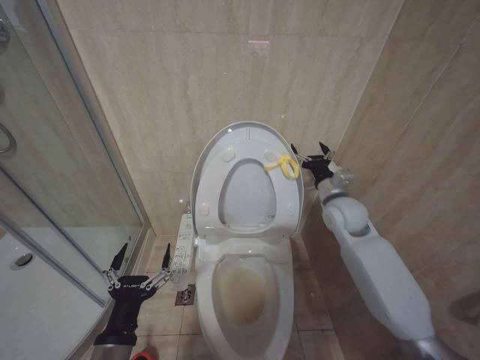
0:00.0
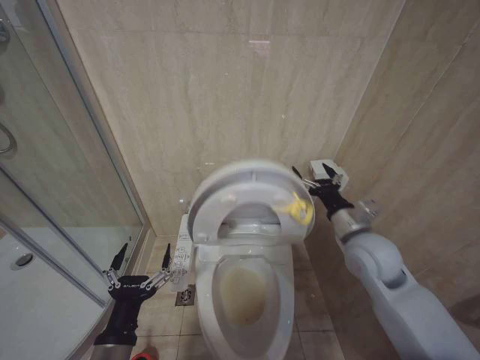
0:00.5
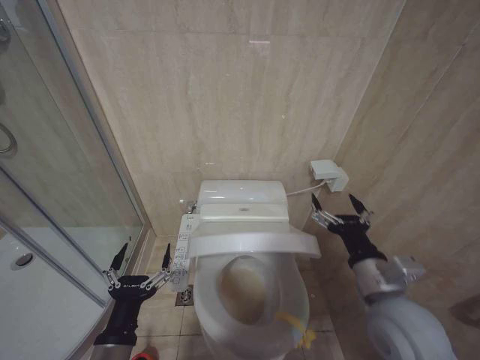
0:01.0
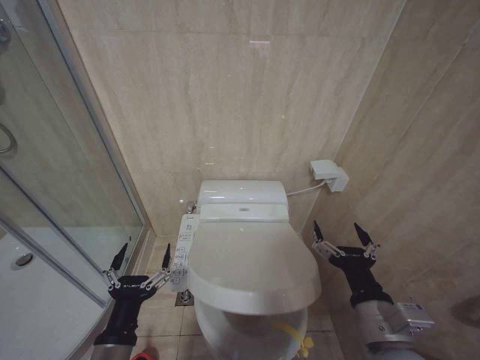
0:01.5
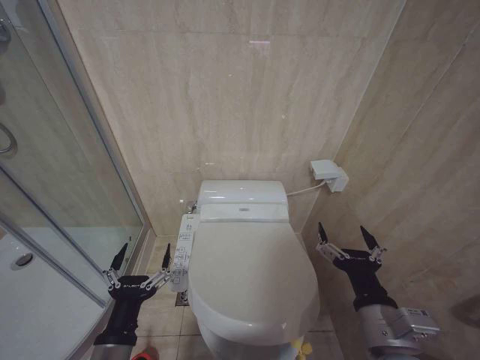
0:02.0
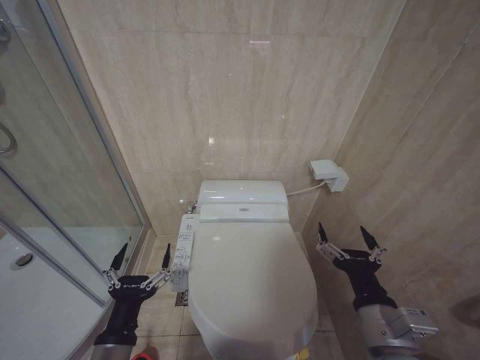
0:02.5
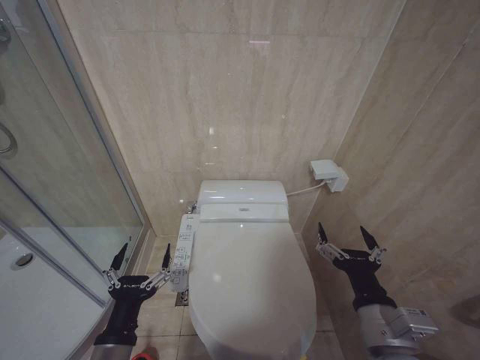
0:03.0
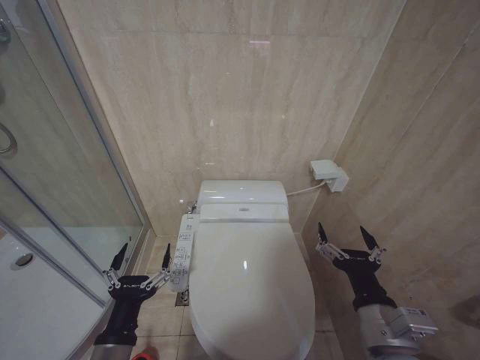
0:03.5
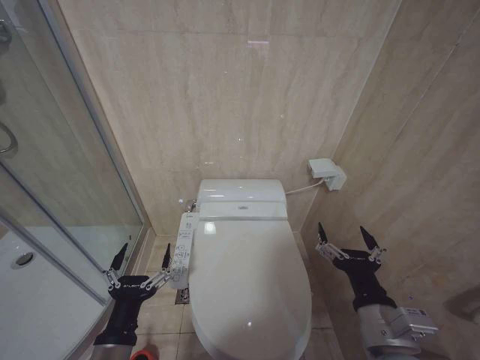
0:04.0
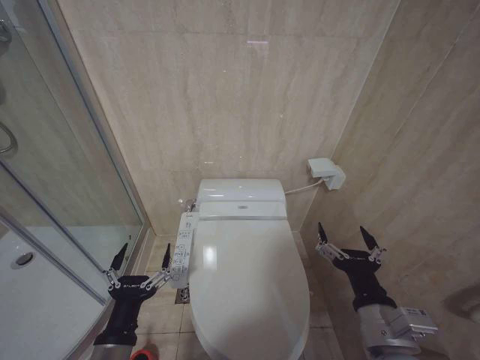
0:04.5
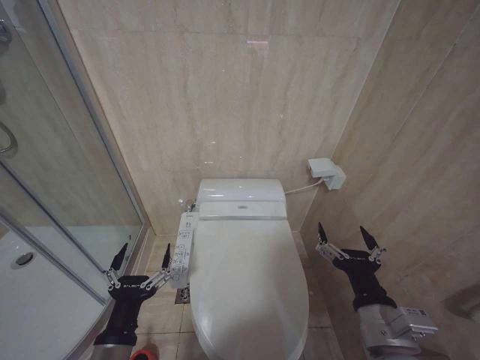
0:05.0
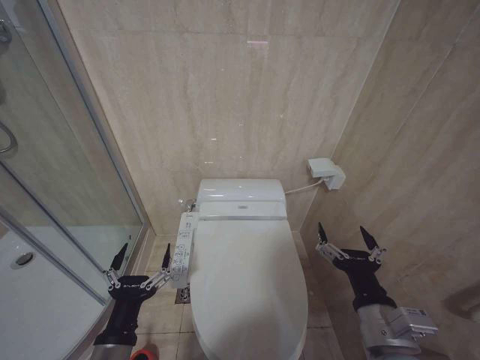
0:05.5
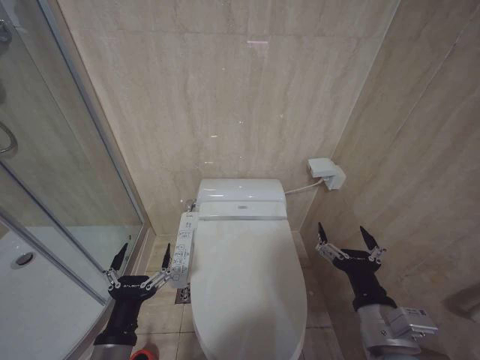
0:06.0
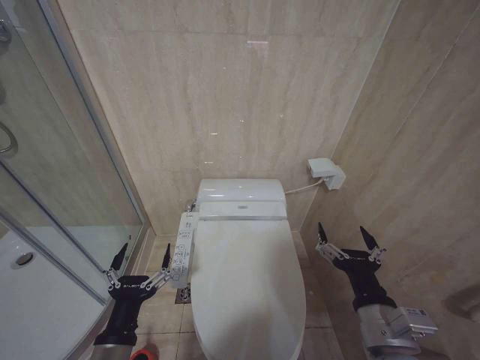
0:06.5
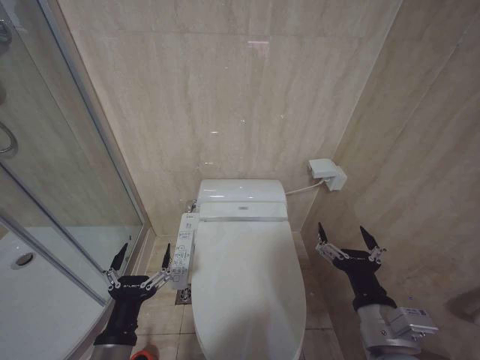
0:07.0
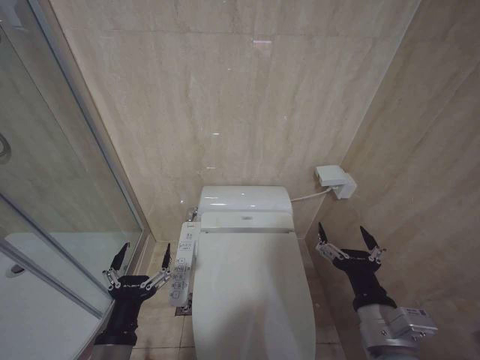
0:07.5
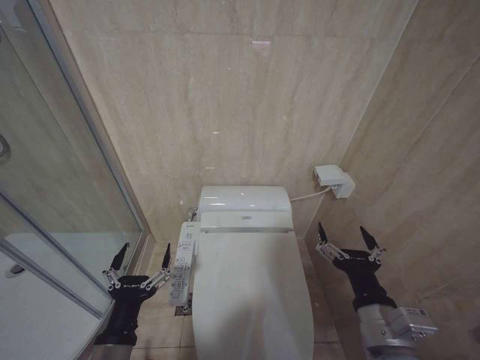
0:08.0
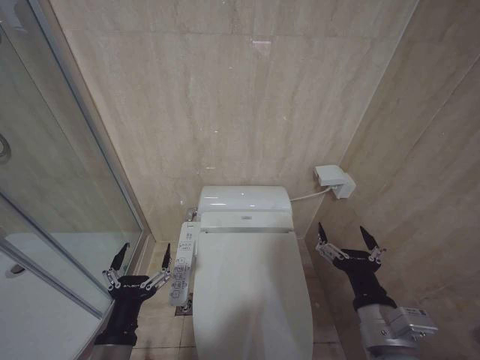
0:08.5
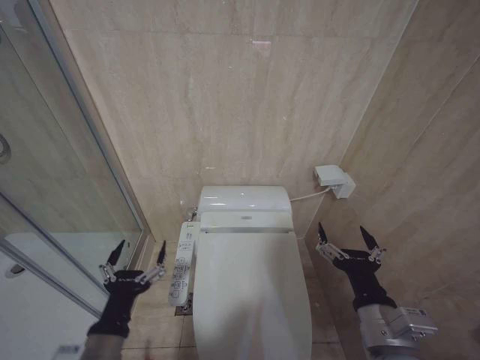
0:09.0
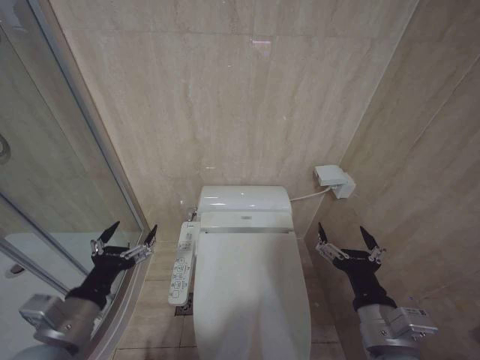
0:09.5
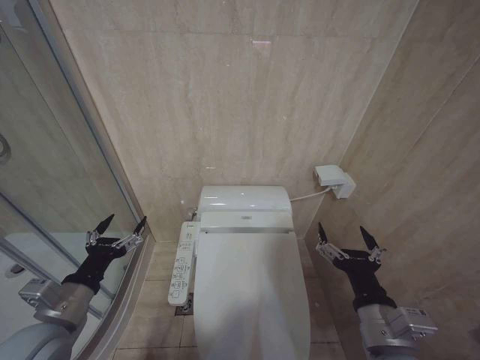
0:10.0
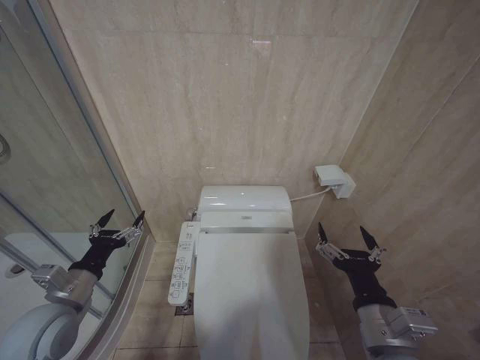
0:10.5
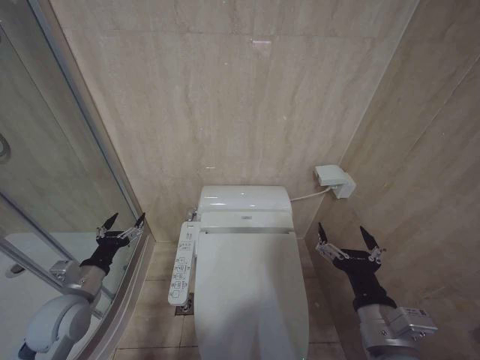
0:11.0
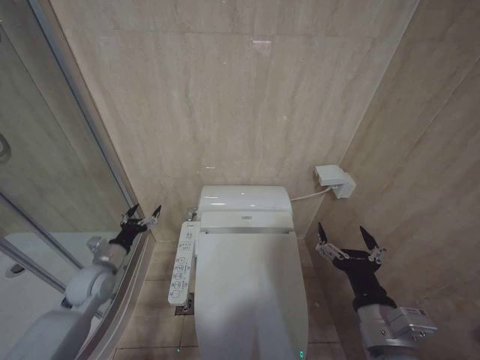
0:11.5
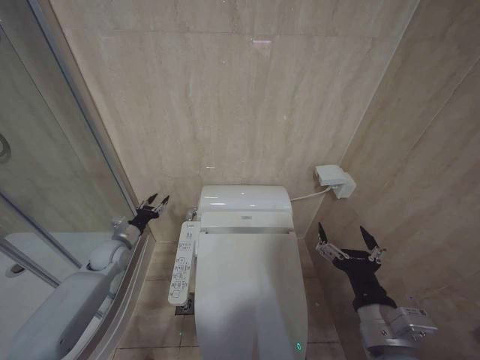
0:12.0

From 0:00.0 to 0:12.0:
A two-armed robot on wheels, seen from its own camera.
Task of the whole recording: Open the toilet lid, clean the toilet bowl with a toilet brush, close the toilet lid, and flush.
From 0:00.0 to 0:02.0: The right gripper is displaced backward by some 30 cm.
From 0:02.0 to 0:08.0: Neither gripper changes place.
From 0:08.0 to 0:10.0: The left gripper shifts roughly 15 cm to the left, forward and upward.
From 0:10.0 to 0:12.0: The left gripper is displaced forward and downward by about 25 cm.

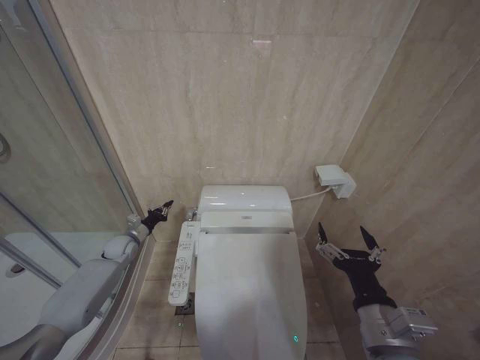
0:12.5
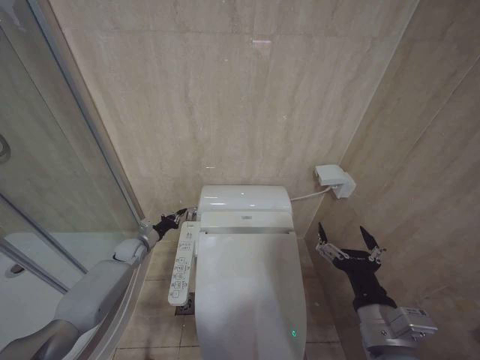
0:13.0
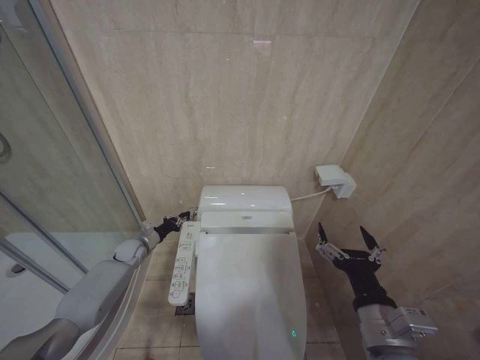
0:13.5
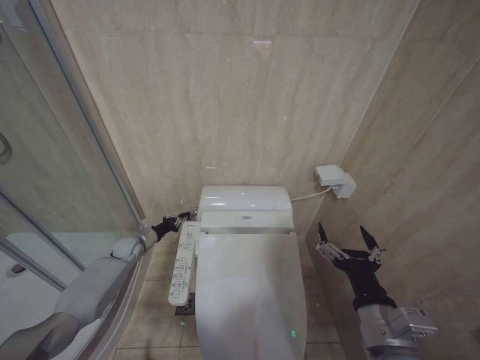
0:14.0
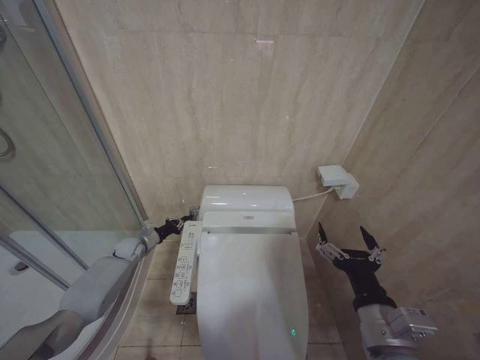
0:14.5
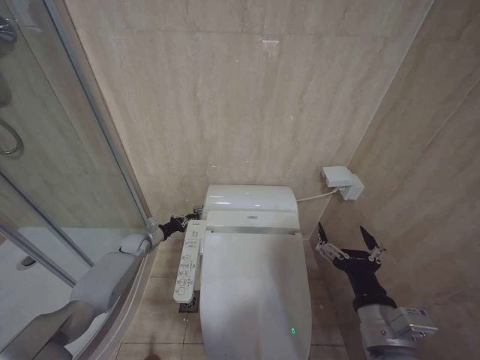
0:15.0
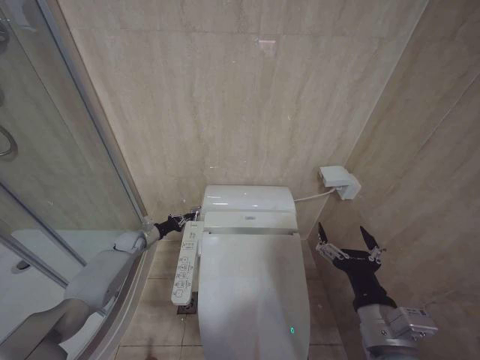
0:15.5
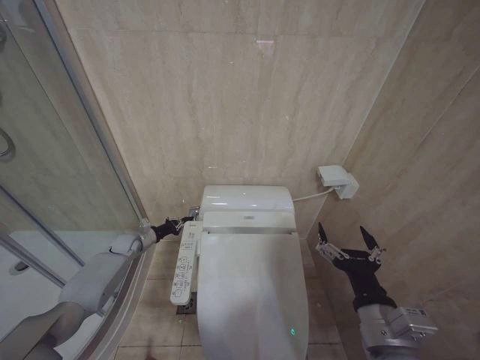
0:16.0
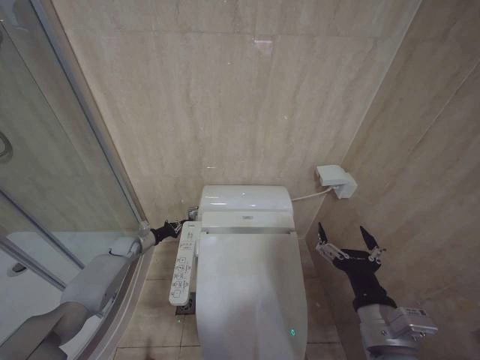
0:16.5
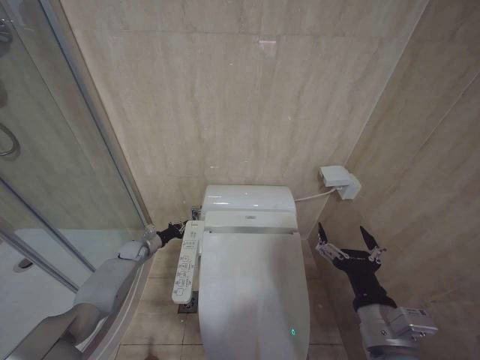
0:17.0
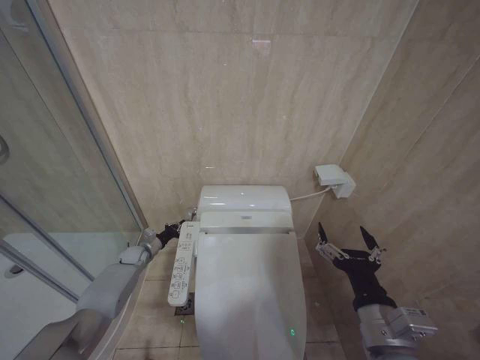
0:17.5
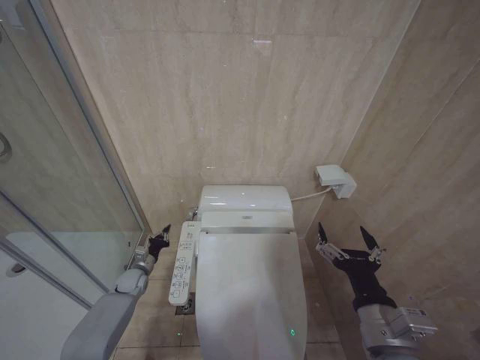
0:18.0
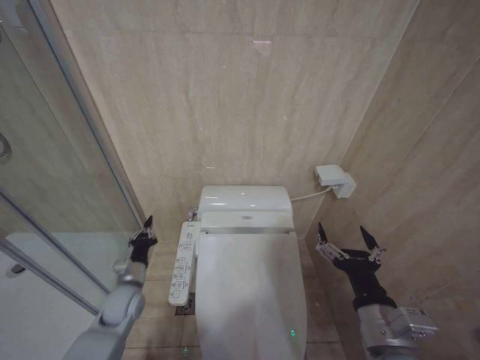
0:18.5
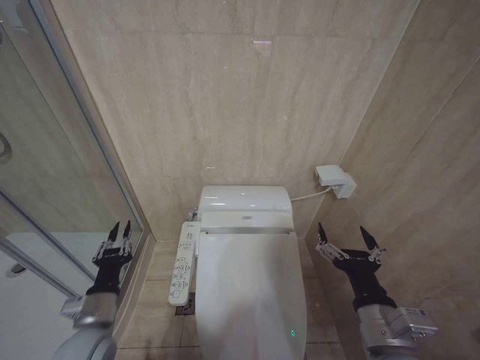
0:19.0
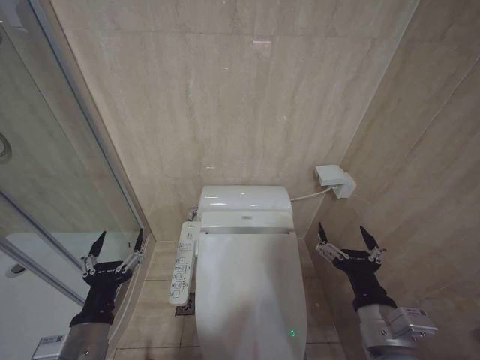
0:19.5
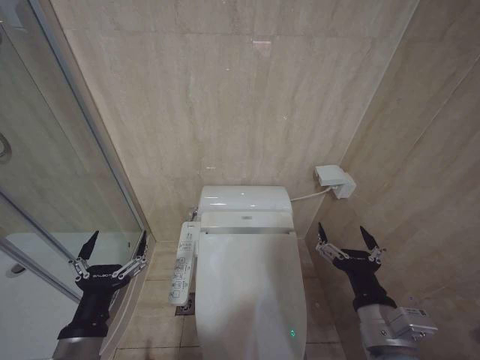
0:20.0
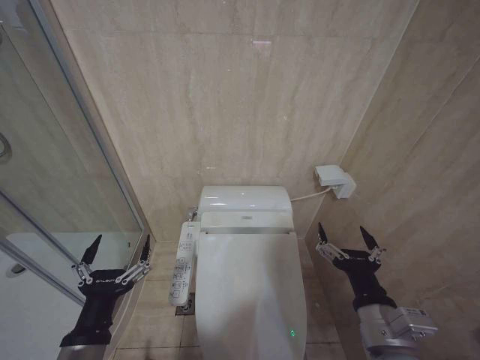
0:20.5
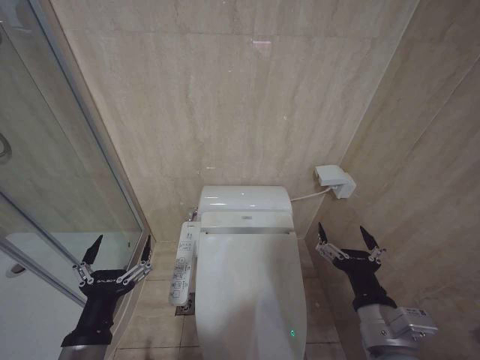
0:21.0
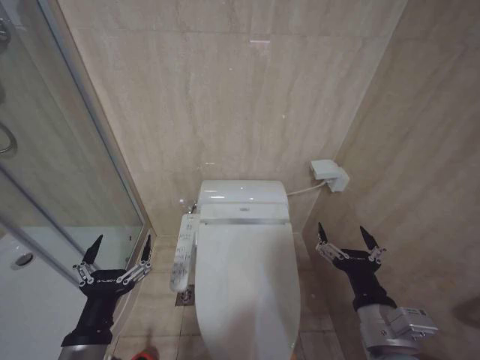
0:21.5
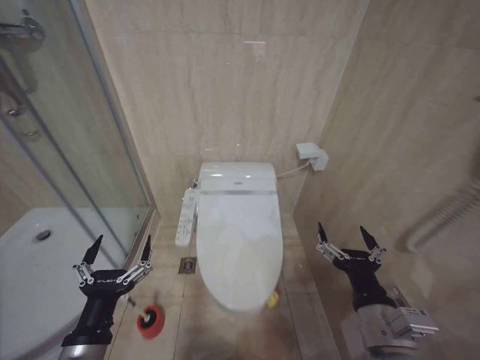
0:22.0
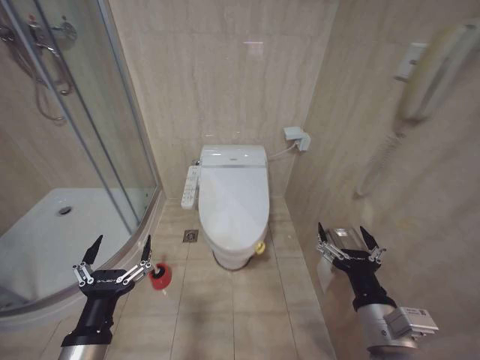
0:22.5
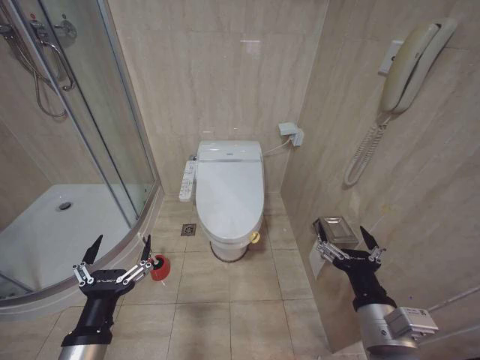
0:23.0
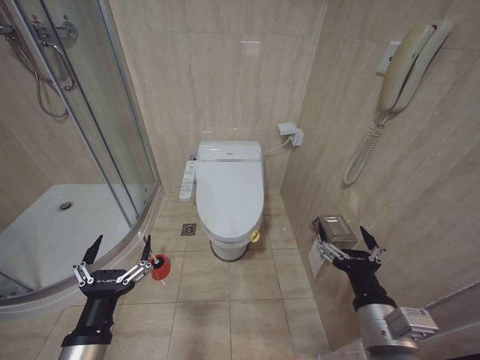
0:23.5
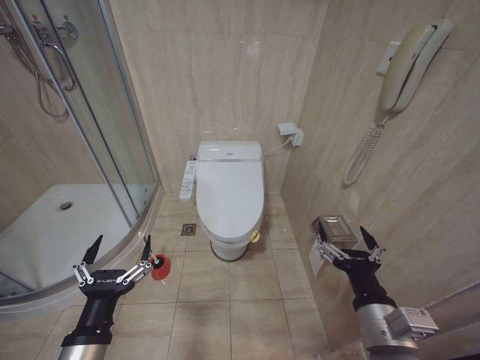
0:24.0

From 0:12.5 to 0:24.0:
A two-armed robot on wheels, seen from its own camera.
Task of the whole recording: Open the toilet lid, clean the toilet bowl with a toilet brush, close the toilet lid, and flush.
From 0:14.5 to 0:16.5: The grippers move only a little.
From 0:16.5 to 0:18.5: The left gripper shifts roughly 20 cm backward and to the right.
From 0:18.5 to 0:20.0: The left gripper is displaced backward and upward by approximately 30 cm, and opens.
From 0:20.0 to 0:22.0: The grippers make only small movements.
